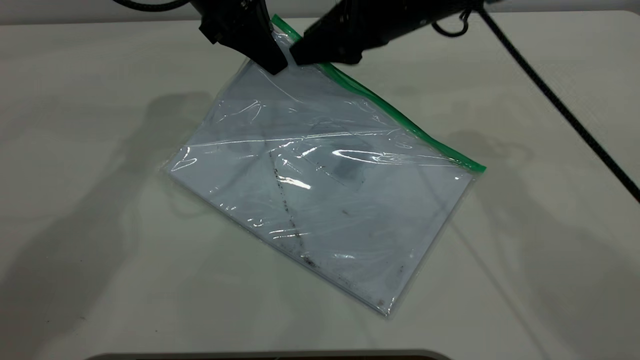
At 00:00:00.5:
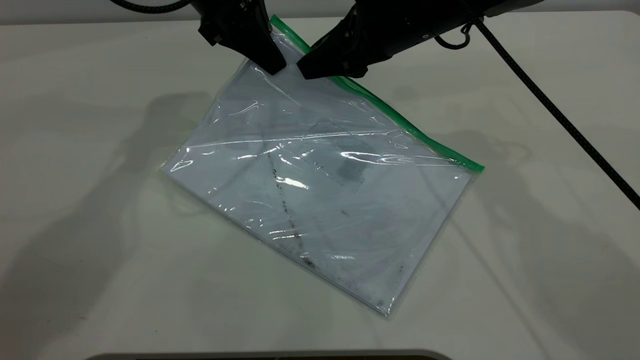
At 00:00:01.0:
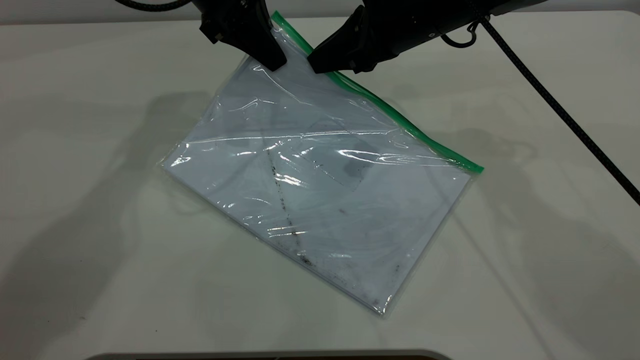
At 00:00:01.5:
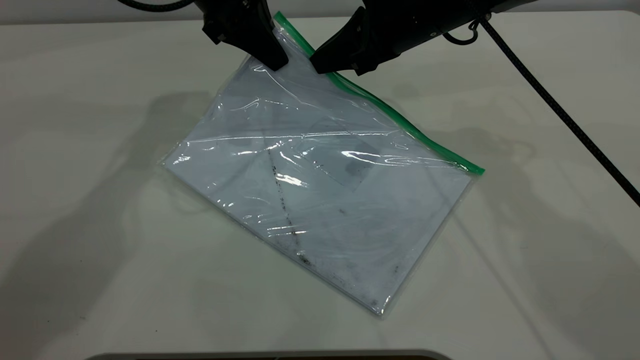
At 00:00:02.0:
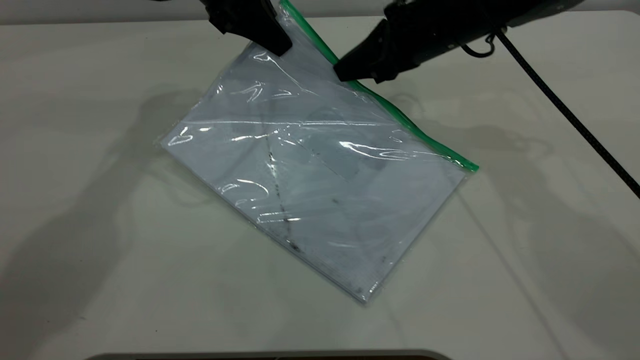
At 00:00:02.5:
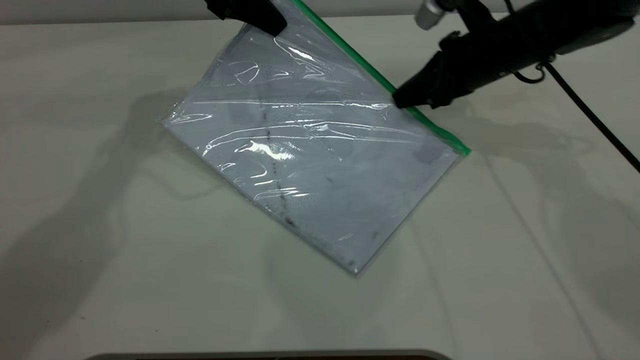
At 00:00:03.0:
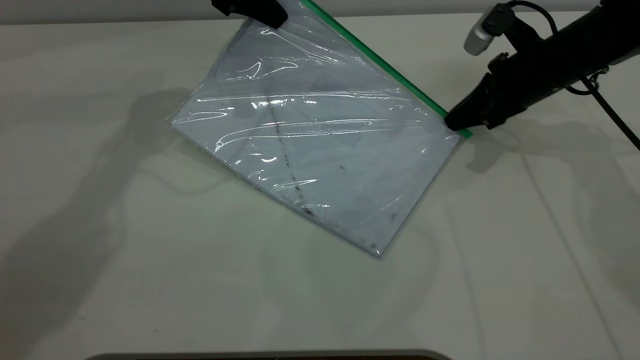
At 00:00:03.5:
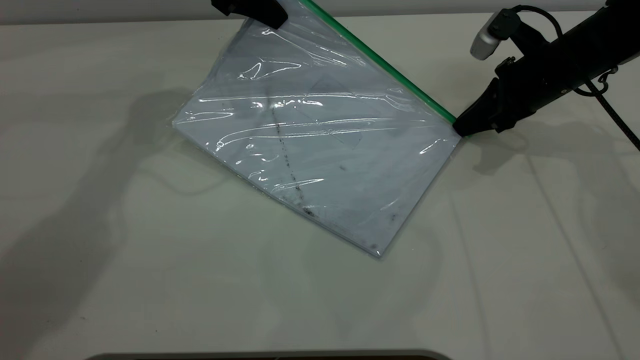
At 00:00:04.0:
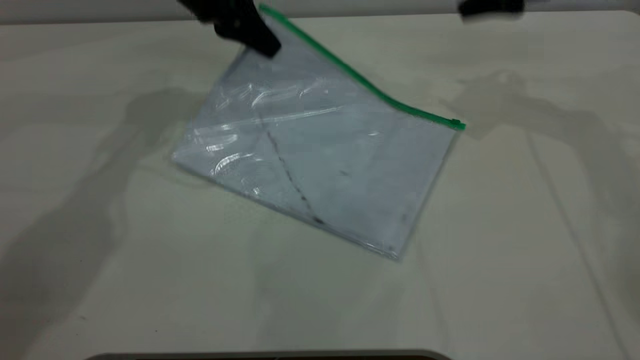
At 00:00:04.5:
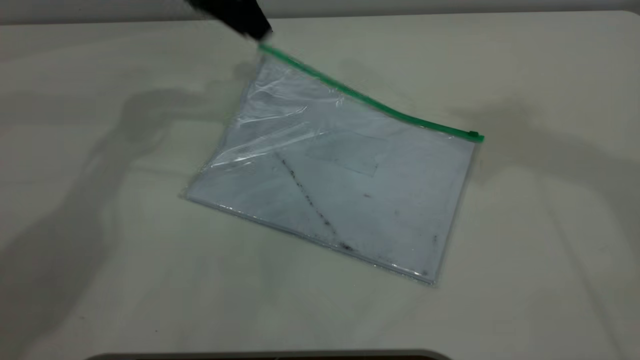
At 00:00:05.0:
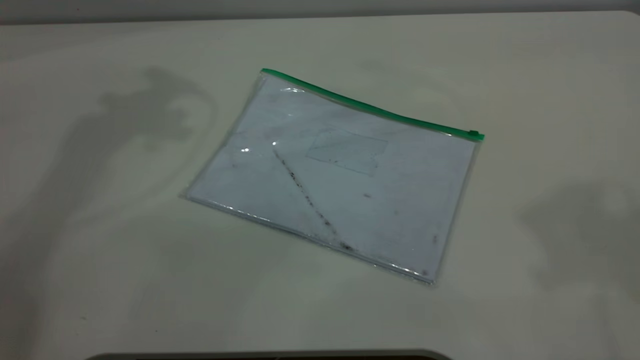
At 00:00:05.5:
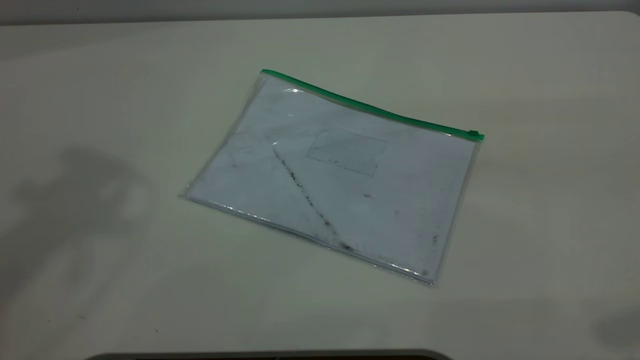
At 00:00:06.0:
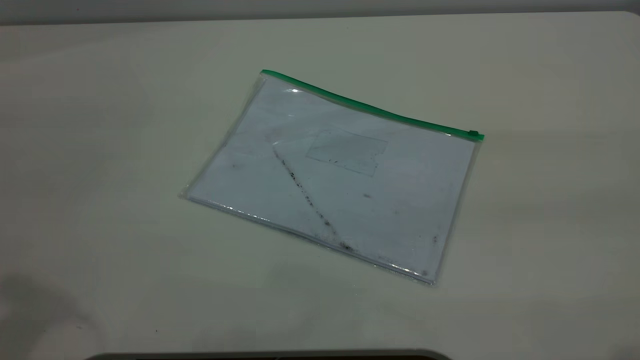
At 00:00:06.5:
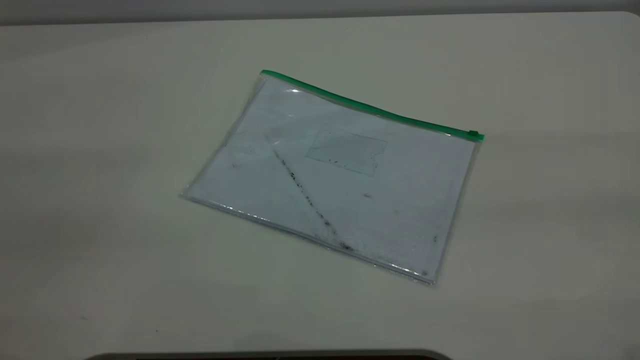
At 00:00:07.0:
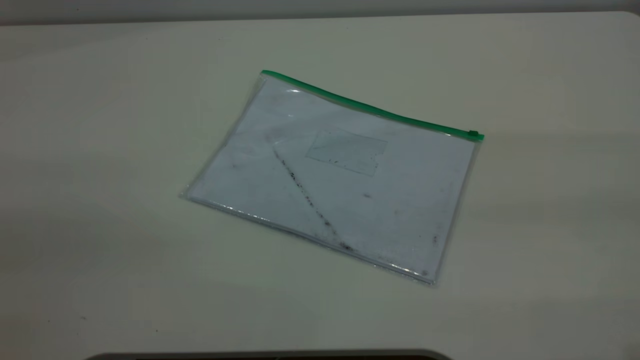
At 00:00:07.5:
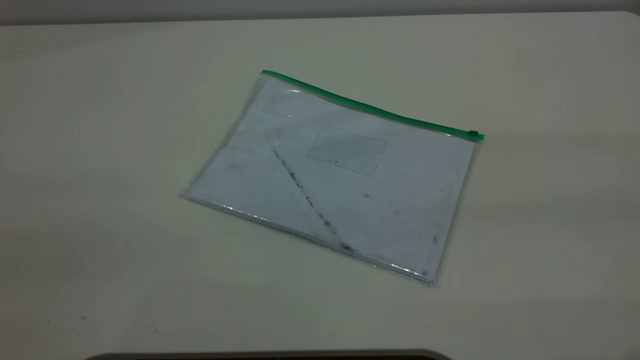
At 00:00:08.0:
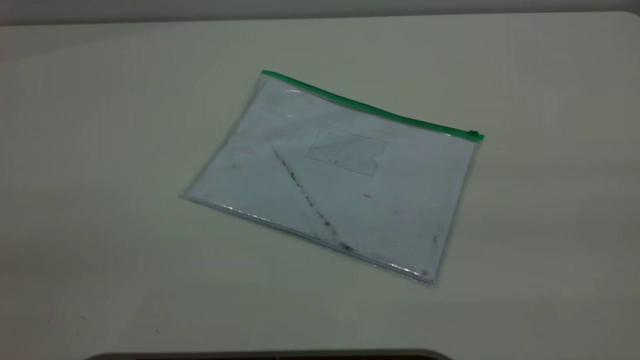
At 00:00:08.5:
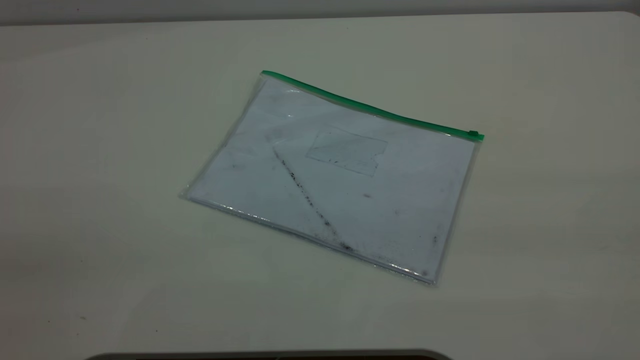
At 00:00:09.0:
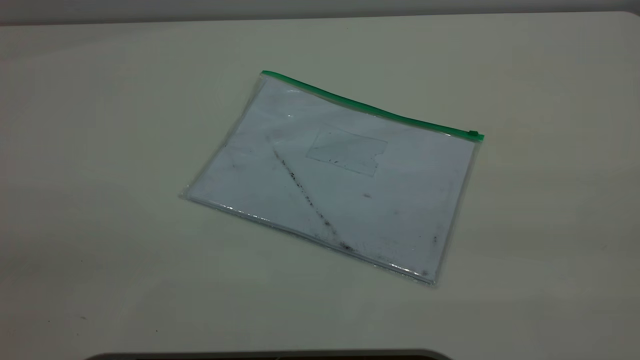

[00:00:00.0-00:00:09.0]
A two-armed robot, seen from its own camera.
Step, 00:00:00.0 to 00:00:03.5: Pulling up the zipper on the transparent plastic bag with the right gripper to close it.
Step, 00:00:04.0 to 00:00:04.5: Place the transparent plastic bag.
00:00:00.0 to 00:00:02.0: The right gripper changes place by approximately 5 cm, and closes.
00:00:02.0 to 00:00:04.5: The right gripper goes some 30 cm upward, and opens its fingers; the left gripper opens its fingers.
00:00:04.5 to 00:00:07.0: The right gripper is displaced backward by roughly 30 cm, while the left gripper shifts some 50 cm backward.

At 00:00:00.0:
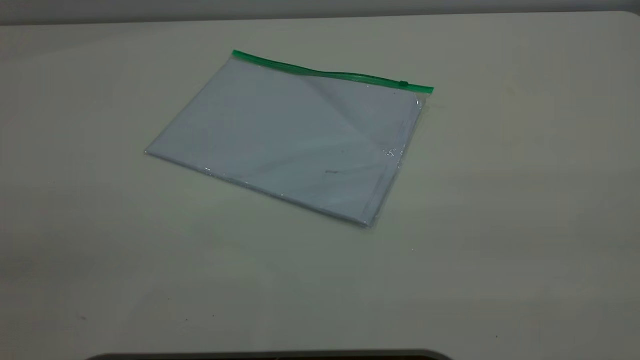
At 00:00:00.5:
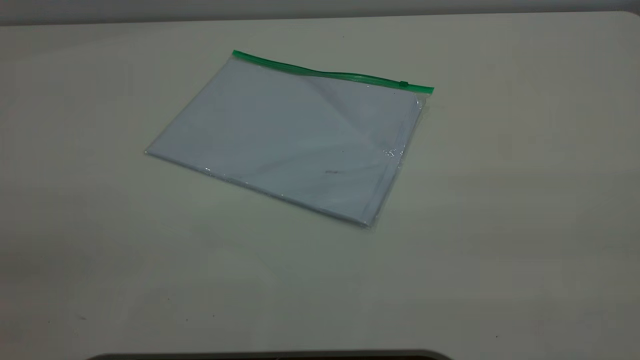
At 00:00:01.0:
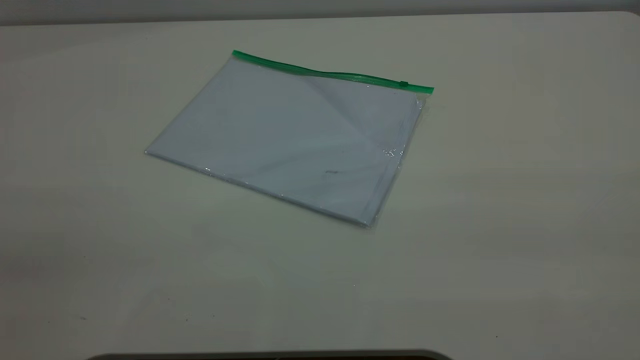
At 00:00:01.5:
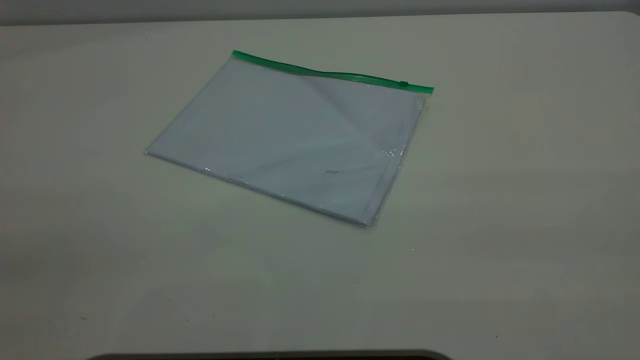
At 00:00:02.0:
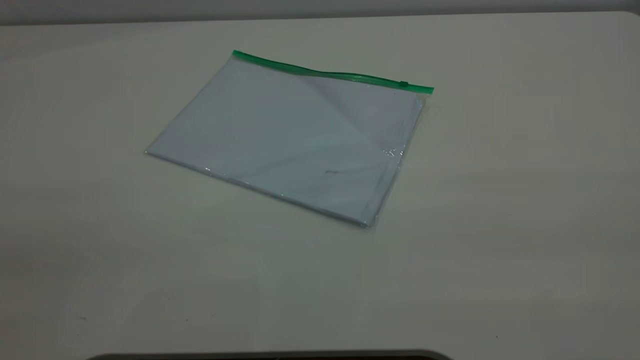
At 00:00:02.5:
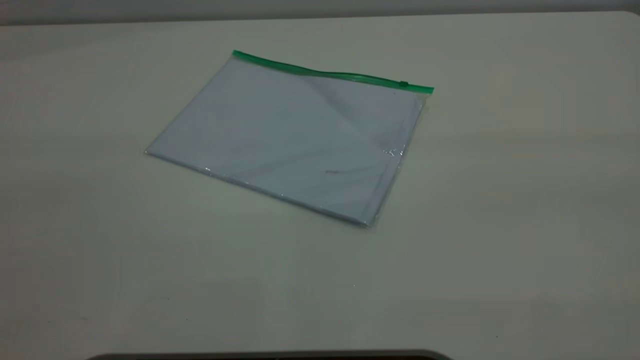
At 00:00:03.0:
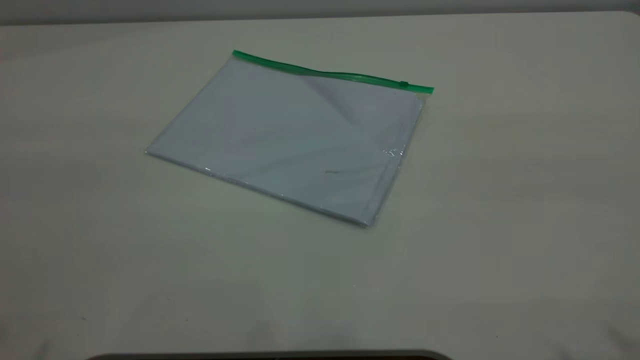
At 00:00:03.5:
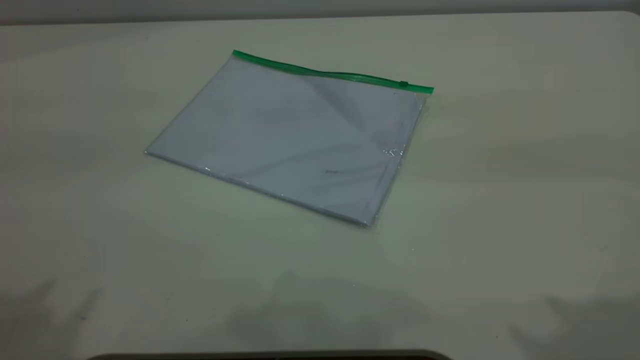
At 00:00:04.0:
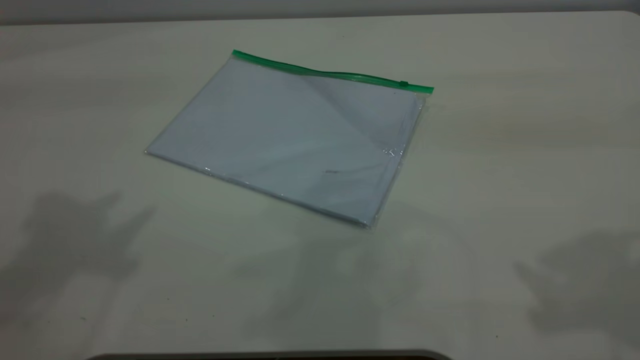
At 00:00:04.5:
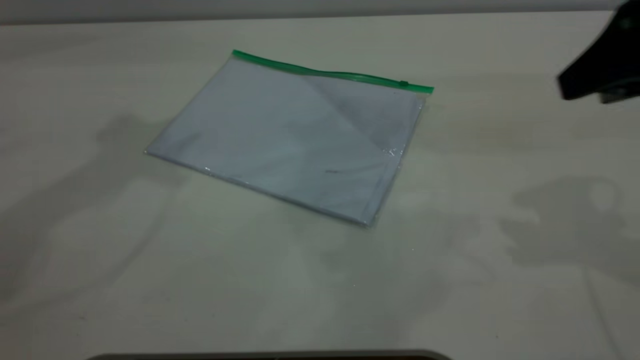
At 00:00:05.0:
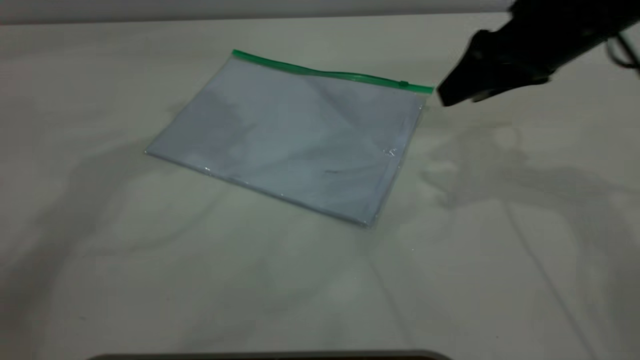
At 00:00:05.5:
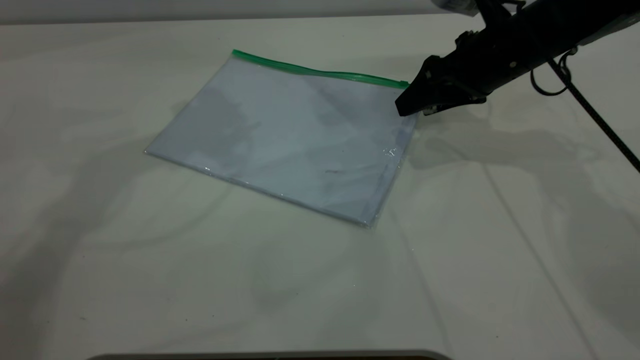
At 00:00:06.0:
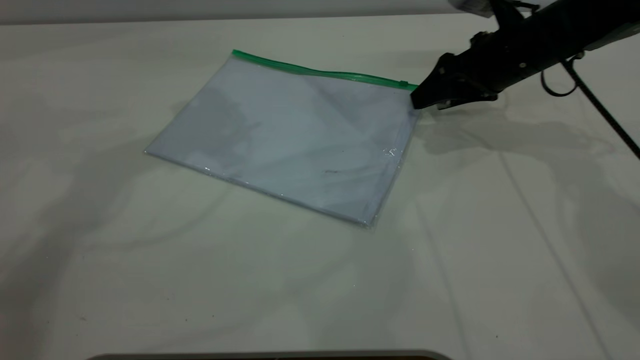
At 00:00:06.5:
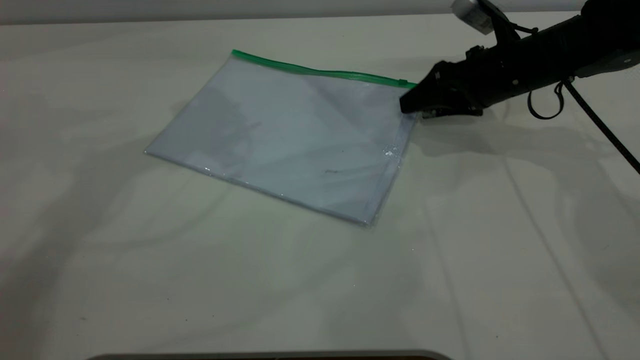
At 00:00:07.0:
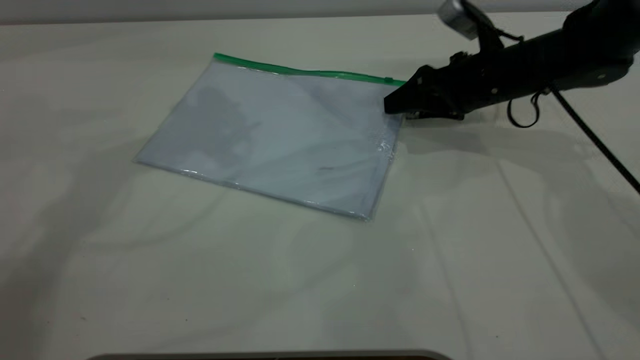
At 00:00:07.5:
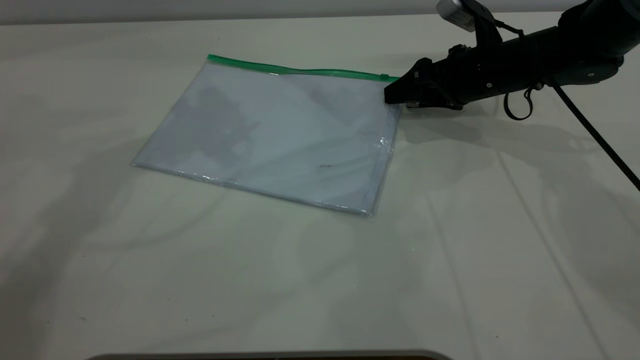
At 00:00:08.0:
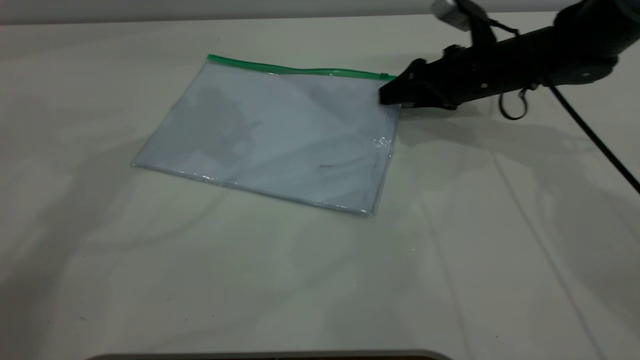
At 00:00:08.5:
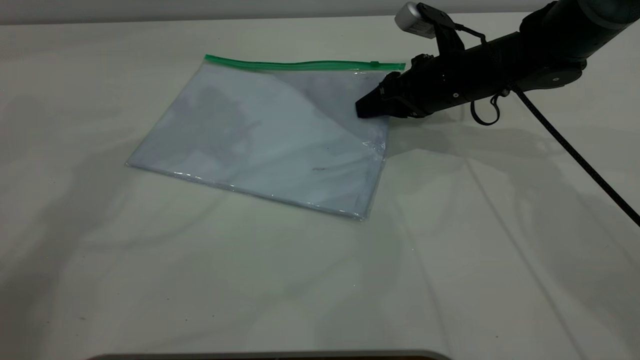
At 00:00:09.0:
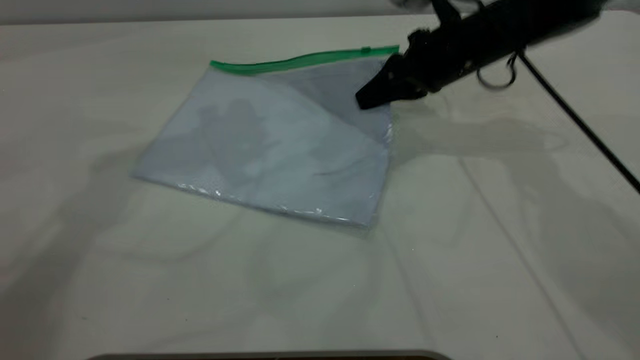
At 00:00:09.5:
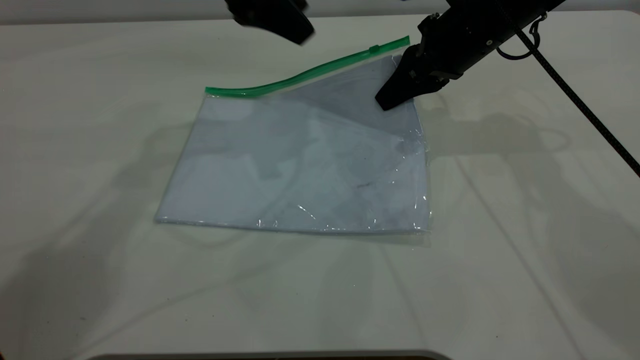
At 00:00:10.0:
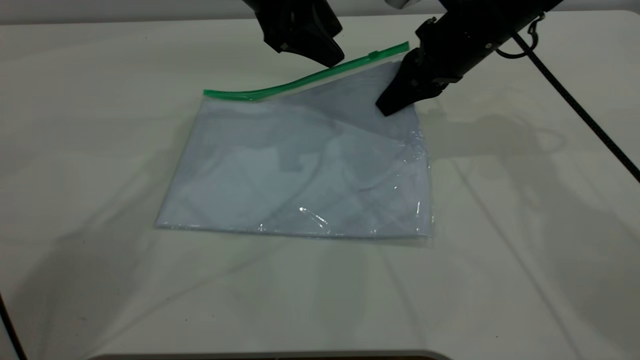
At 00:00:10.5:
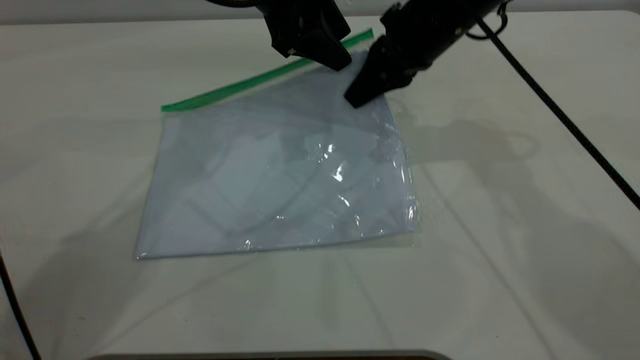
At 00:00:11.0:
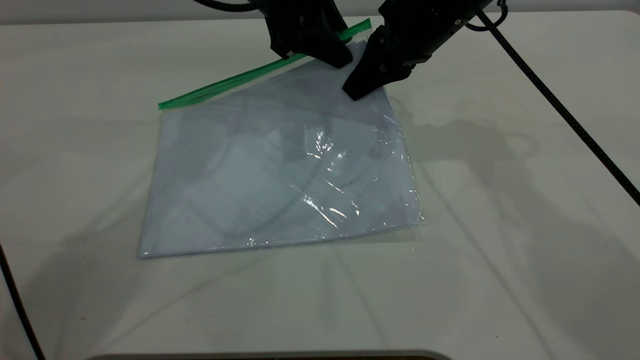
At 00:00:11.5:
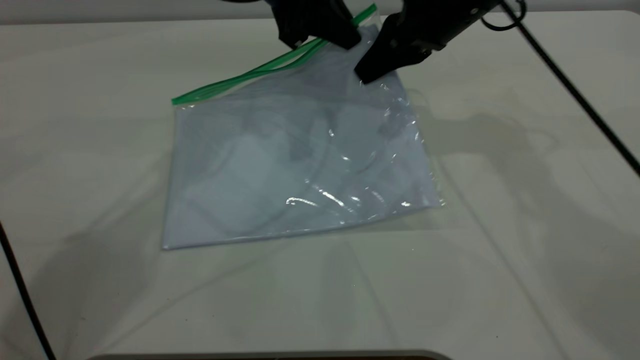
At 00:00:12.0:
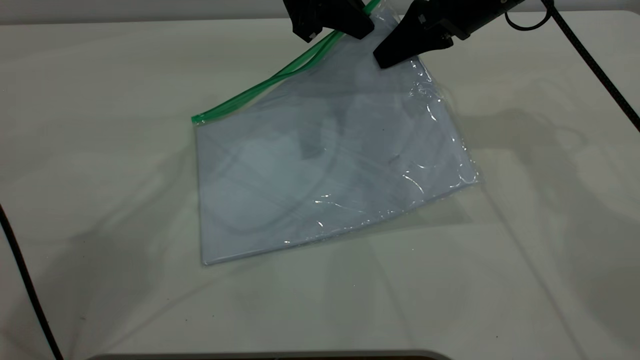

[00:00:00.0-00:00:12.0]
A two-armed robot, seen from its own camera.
Step, 00:00:00.0 to 00:00:08.5: Pick up the transparent plastic bag with the right gripper.
00:00:00.0 to 00:00:02.0: The two grippers keep their place.
00:00:04.0 to 00:00:06.0: The right gripper travels forward and downward by approximately 35 cm. The left gripper goes about 20 cm forward, to the right and downward.
00:00:06.0 to 00:00:08.0: The right gripper ends up about 5 cm from where it was.
00:00:08.0 to 00:00:10.0: The left gripper travels to the right and downward by approximately 15 cm. The right gripper moves upward, about 10 cm, and closes up.
00:00:10.0 to 00:00:12.0: The left gripper closes its fingers.
